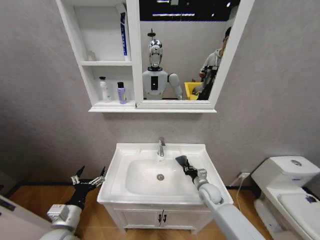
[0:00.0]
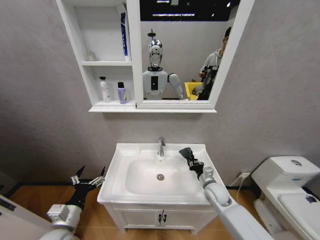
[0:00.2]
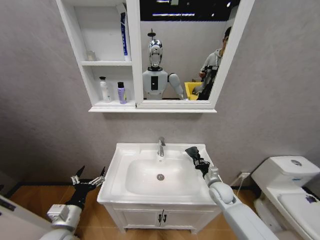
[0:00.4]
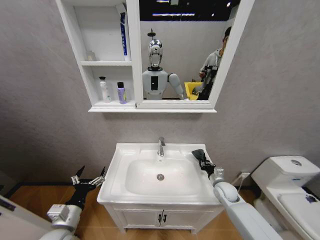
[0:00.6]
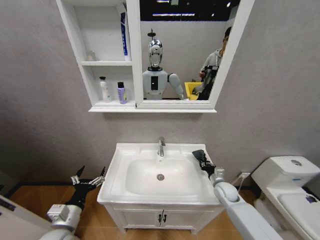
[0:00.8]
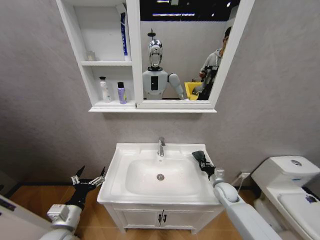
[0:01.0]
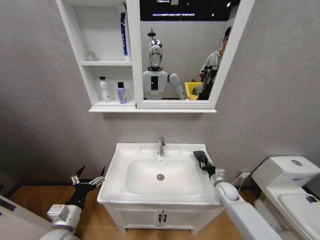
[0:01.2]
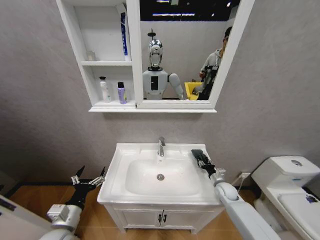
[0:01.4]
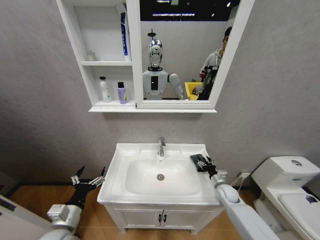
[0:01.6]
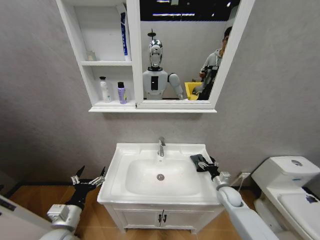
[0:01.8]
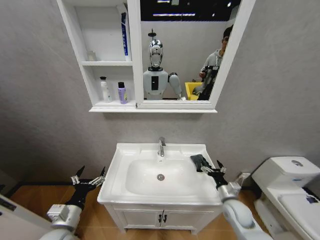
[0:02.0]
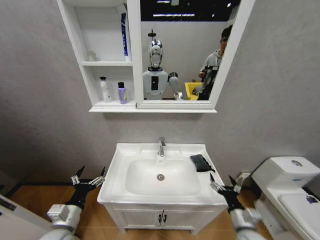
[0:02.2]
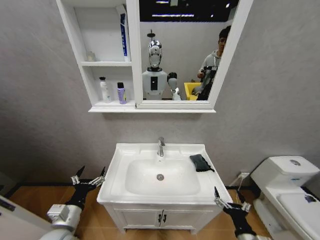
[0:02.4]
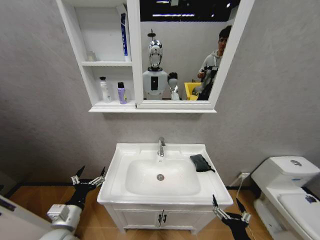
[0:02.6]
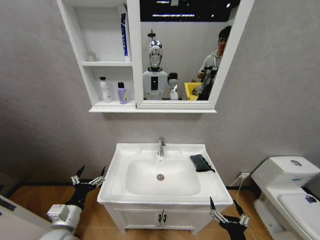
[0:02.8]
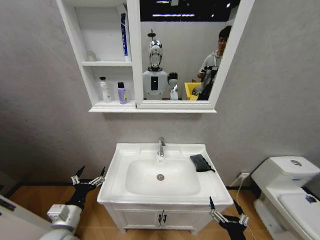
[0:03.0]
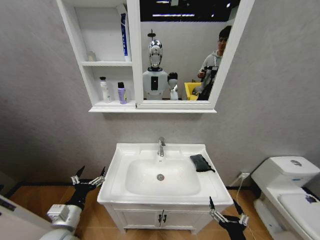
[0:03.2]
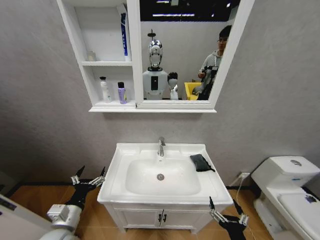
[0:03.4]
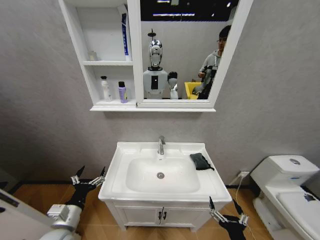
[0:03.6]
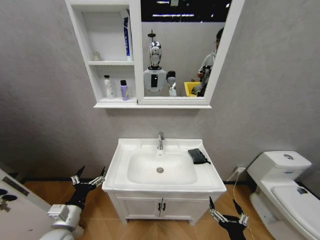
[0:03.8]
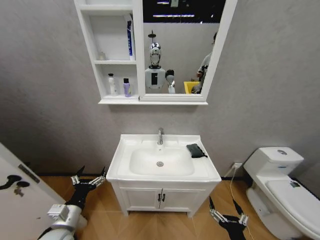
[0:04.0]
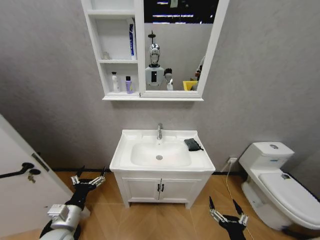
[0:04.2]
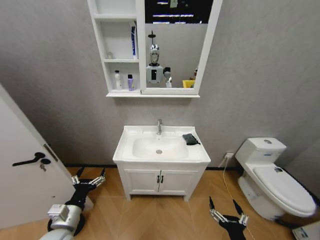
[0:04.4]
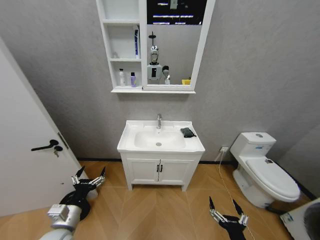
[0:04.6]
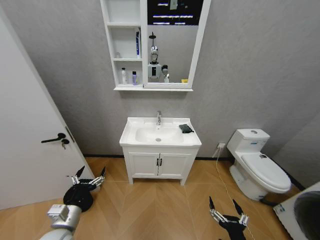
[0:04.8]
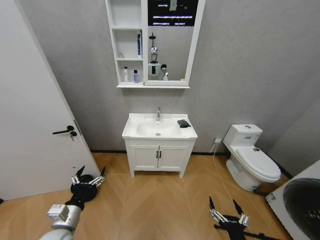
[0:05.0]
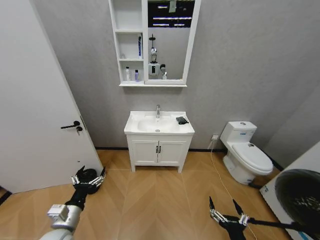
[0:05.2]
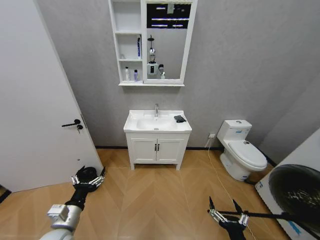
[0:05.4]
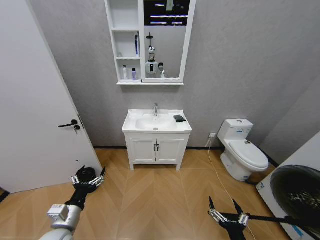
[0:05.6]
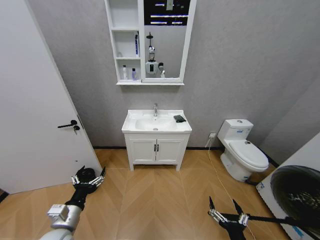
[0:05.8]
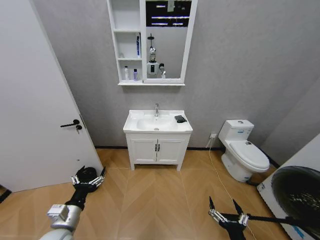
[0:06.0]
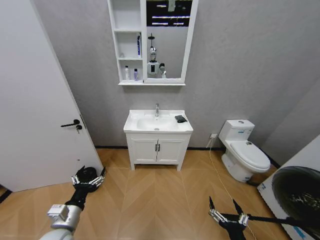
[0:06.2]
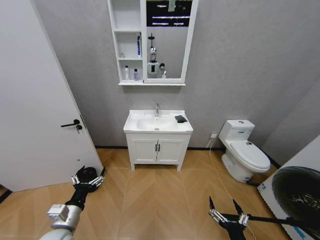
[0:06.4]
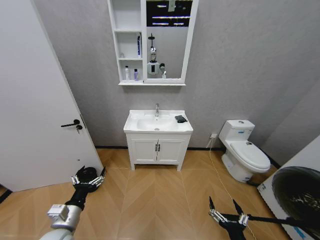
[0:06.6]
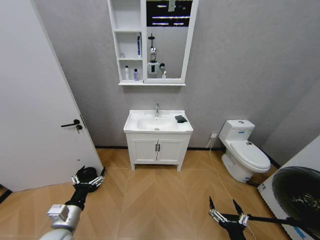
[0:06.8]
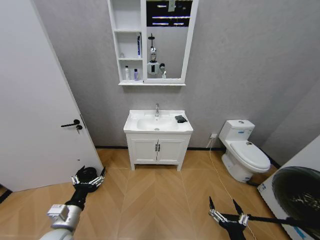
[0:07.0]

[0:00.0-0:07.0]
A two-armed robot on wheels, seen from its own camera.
Task of the whole recording: Move facial cleanser and shampoo from washbasin to cabinet, then wipe washbasin with towel.
0:00.0 to 0:01.4: The right gripper moves to the right, approximately 10 cm, and opens.
0:01.4 to 0:02.8: The right gripper is displaced backward by roughly 35 cm, and opens up.
0:05.6 to 0:07.0: Neither gripper changes place.
